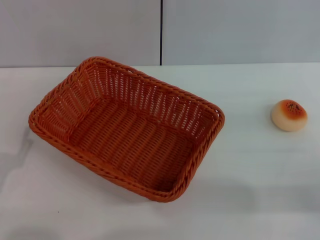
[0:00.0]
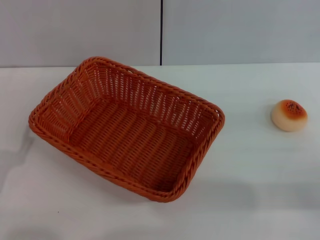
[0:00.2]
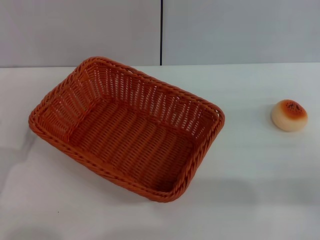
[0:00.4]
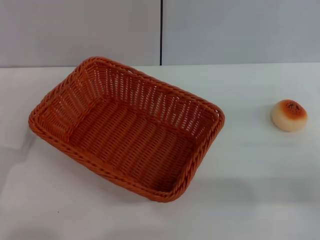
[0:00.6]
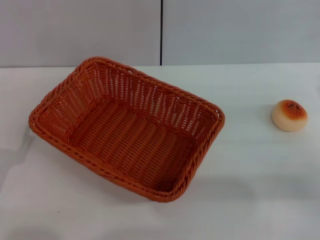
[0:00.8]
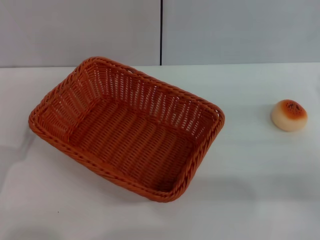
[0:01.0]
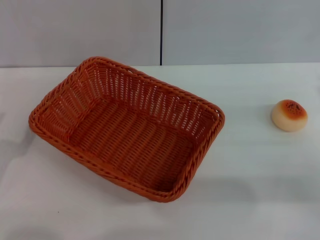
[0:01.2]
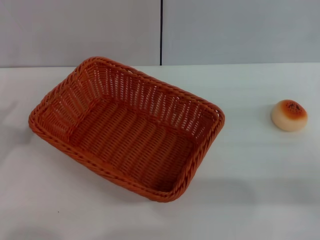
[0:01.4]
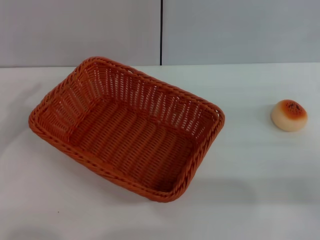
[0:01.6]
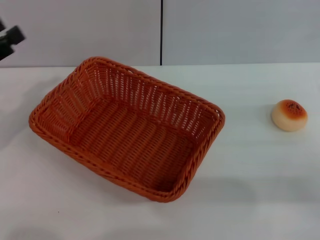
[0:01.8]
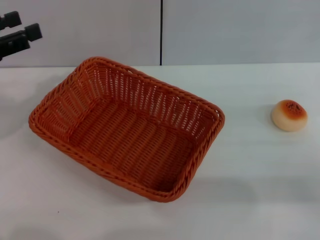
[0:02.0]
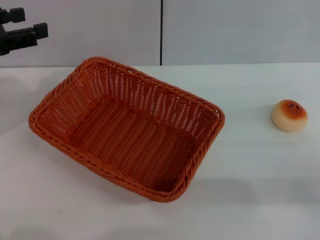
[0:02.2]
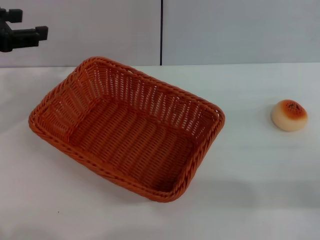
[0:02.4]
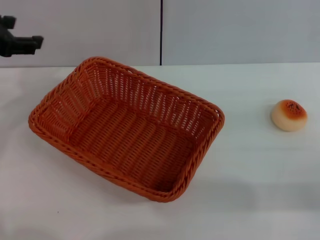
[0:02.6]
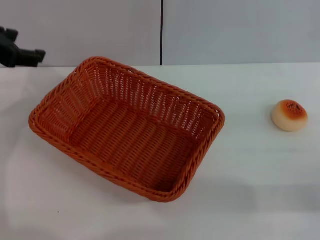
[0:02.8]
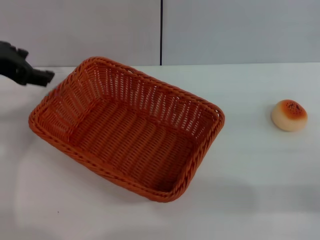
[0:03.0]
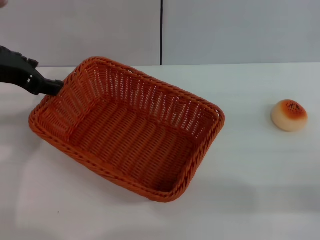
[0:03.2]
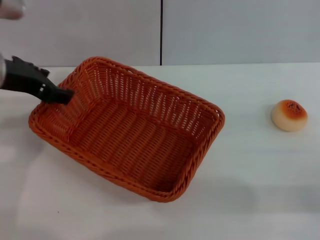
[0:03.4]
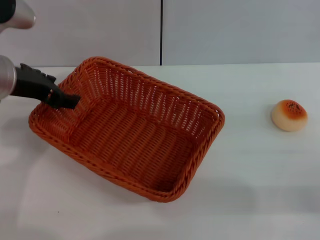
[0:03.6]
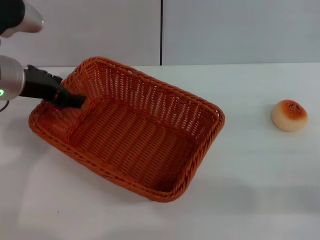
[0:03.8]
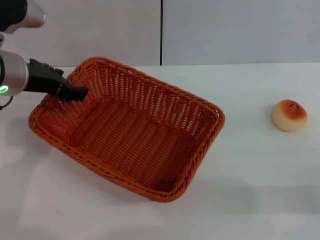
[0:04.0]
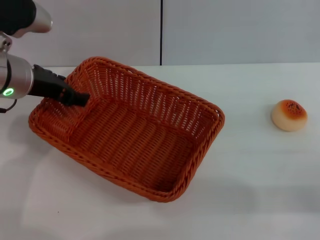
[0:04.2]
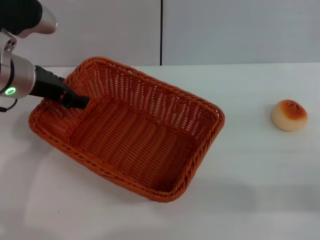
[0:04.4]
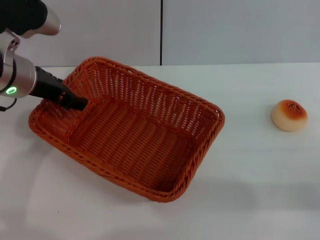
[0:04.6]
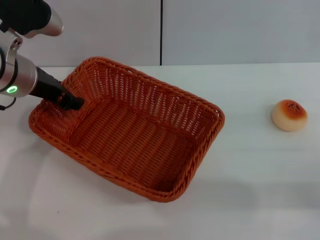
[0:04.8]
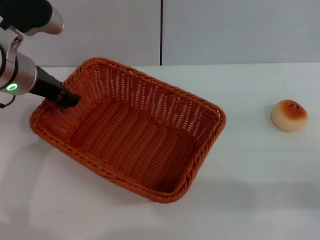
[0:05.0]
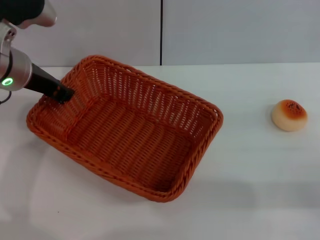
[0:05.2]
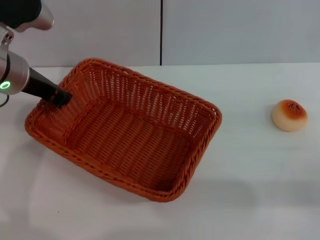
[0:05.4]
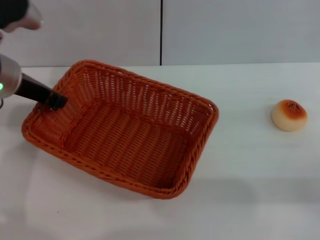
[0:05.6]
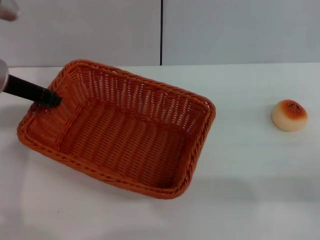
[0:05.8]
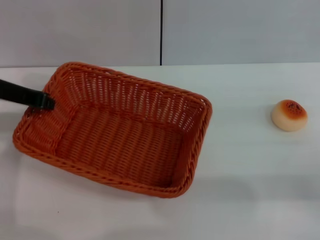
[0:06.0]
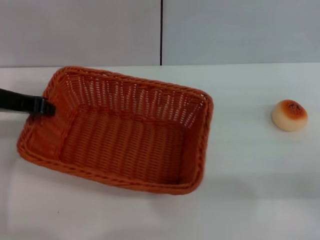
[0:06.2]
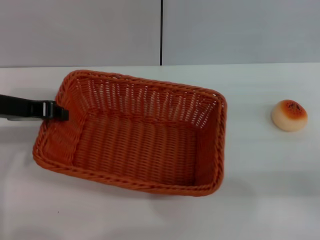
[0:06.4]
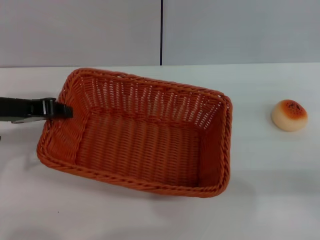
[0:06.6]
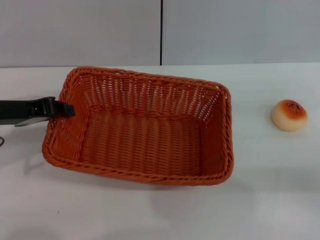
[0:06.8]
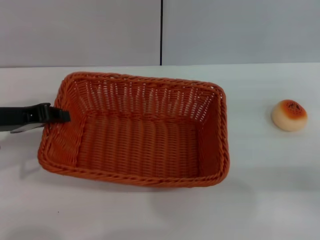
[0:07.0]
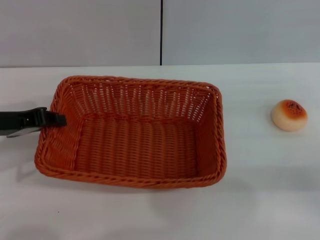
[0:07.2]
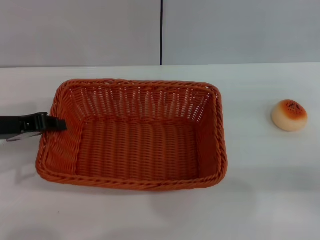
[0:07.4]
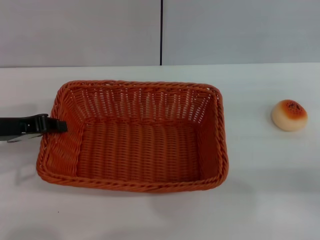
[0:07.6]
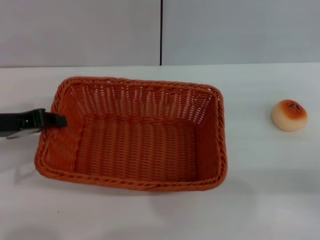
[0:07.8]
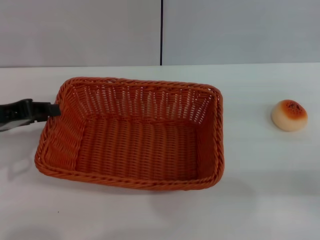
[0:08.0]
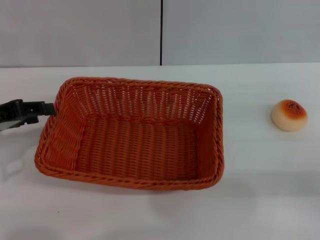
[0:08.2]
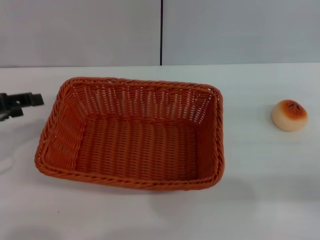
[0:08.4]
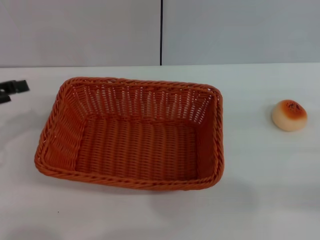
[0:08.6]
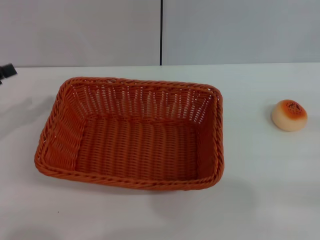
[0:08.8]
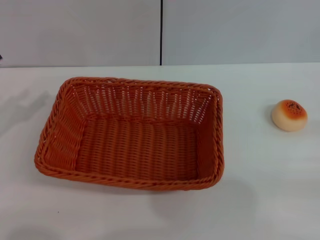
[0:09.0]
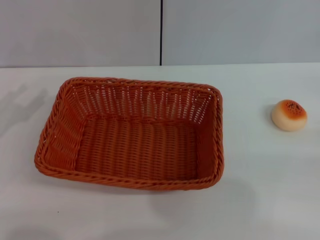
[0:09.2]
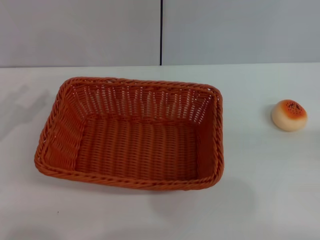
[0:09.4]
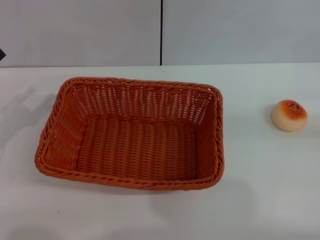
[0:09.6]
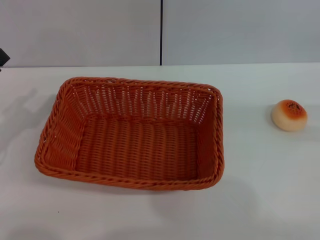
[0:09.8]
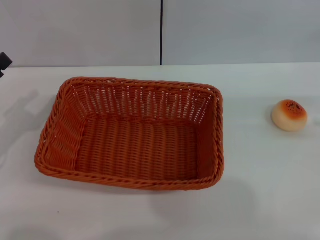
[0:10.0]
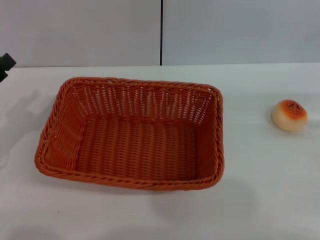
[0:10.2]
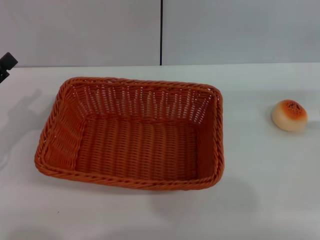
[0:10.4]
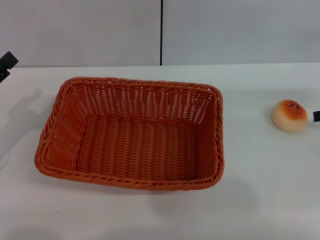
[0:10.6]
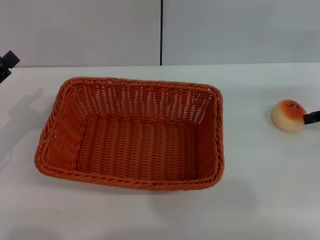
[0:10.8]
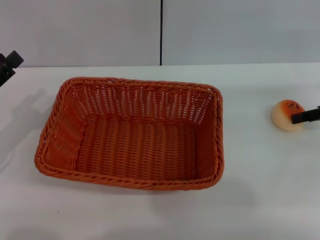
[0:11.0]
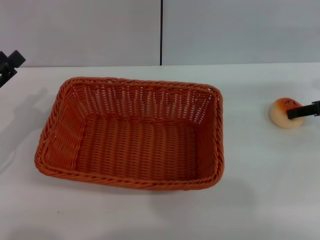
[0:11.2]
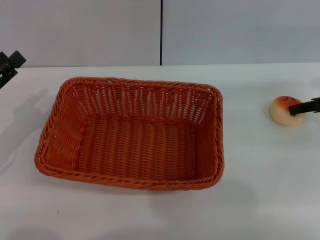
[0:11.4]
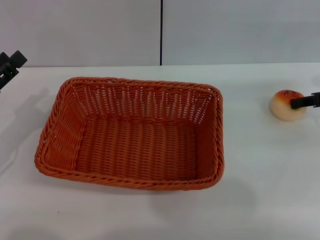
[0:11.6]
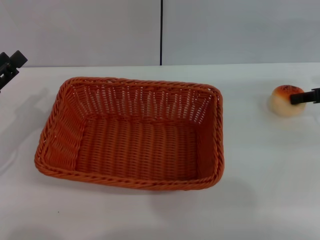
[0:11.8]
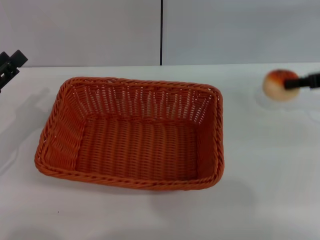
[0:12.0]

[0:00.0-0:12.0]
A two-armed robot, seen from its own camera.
Step, 0:00.0 to 0:08.4: Move the basket to the center of view with the left gripper.
0:01.6 to 0:03.0: The left gripper heads upward, to the right and forward, covering some 20 cm.
0:03.0 to 0:04.4: The left gripper shifts approximately 5 cm downward.
0:04.4 to 0:06.0: The left gripper closes up.
0:06.0 to 0:07.6: The left gripper is displaced backward by some 5 cm.
0:07.6 to 0:09.0: The right gripper moves to the right, some 10 cm; the left gripper moves to the left, some 10 cm, and opens.
0:10.4 to 0:12.0: The right gripper shifts roughly 5 cm to the left, and closes up.

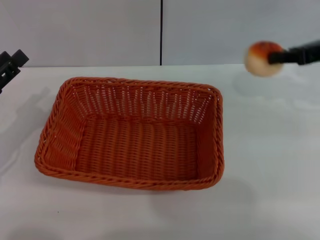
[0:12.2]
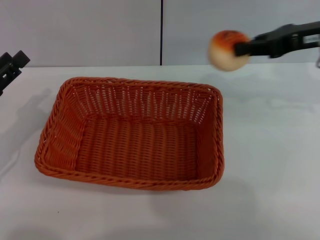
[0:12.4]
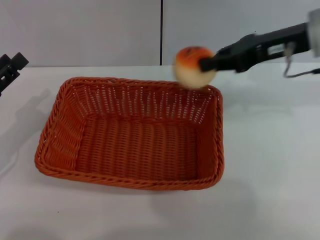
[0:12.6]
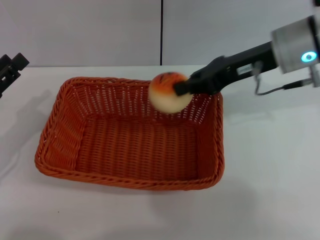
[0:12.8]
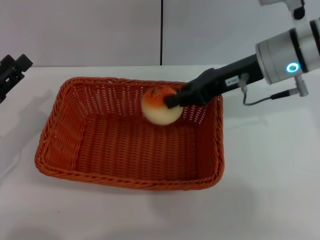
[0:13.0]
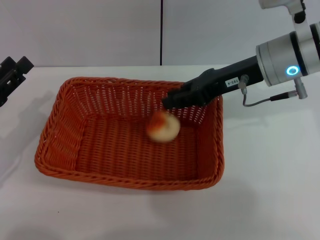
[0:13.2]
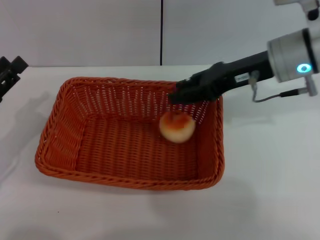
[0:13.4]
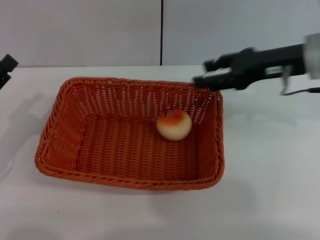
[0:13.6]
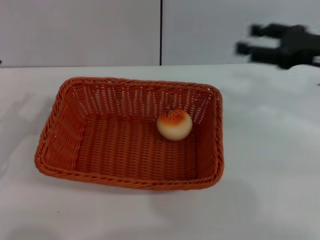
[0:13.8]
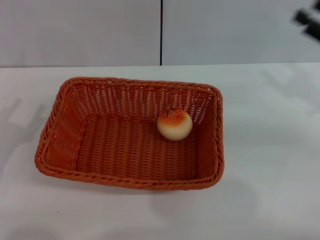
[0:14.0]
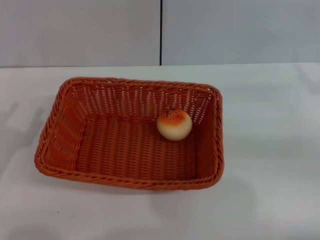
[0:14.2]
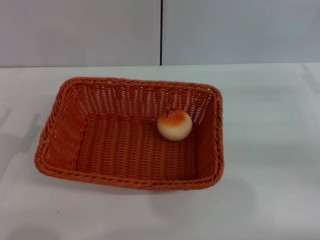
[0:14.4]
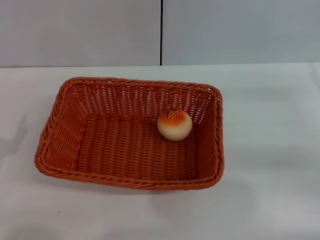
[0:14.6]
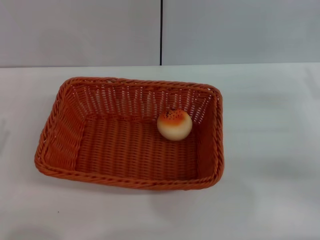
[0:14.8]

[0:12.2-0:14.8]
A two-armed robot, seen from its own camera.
Step, 0:12.2 to 0:13.4: Place the egg yolk pastry into the basket with the right gripper.
0:12.2 to 0:13.4: The right gripper travels to the left by approximately 15 cm.
0:13.4 to 0:14.8: The left gripper goes approximately 10 cm backward. Meanwhile the right gripper heads to the right, backward and downward, covering about 20 cm, and opens.
